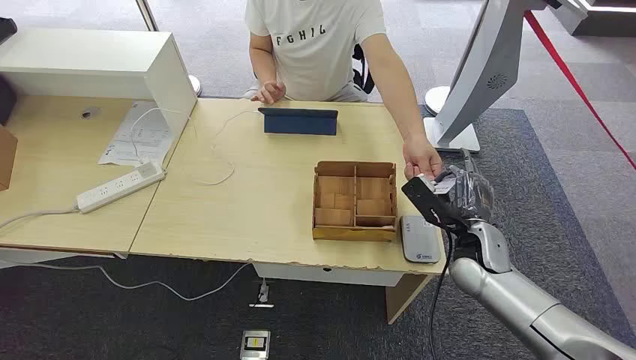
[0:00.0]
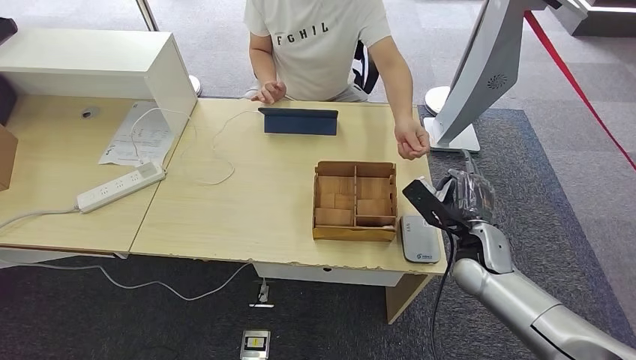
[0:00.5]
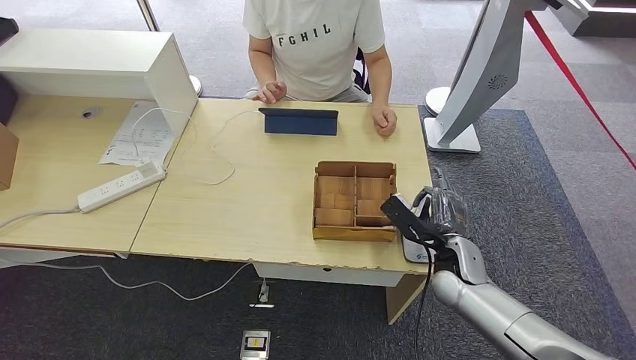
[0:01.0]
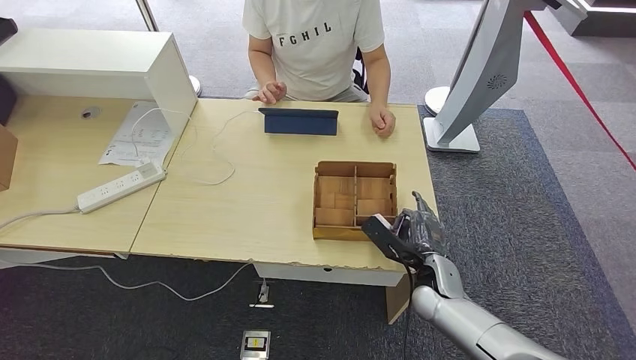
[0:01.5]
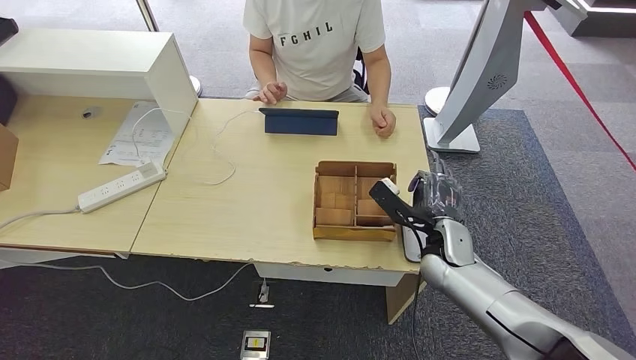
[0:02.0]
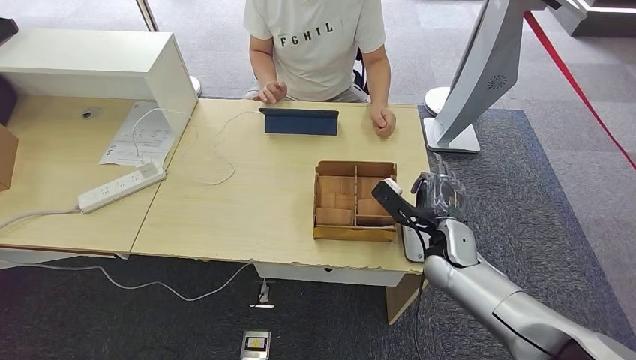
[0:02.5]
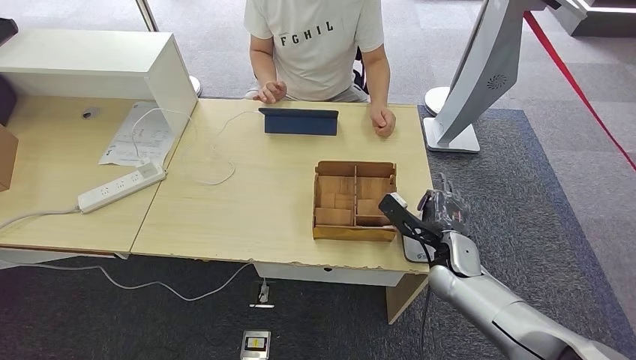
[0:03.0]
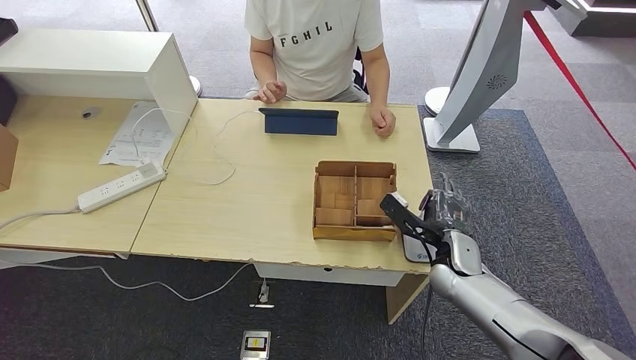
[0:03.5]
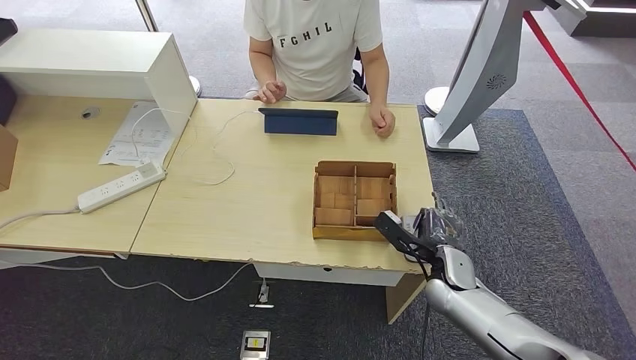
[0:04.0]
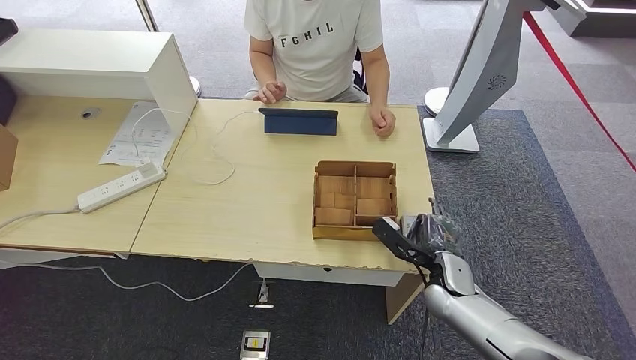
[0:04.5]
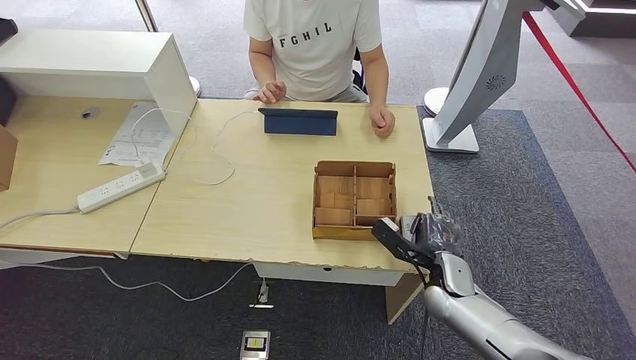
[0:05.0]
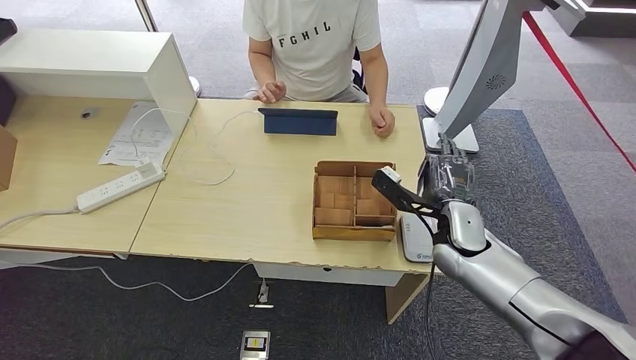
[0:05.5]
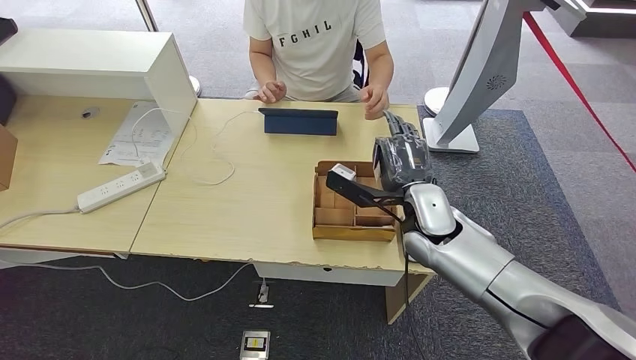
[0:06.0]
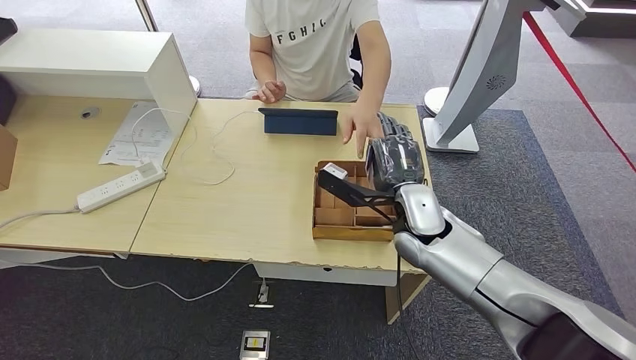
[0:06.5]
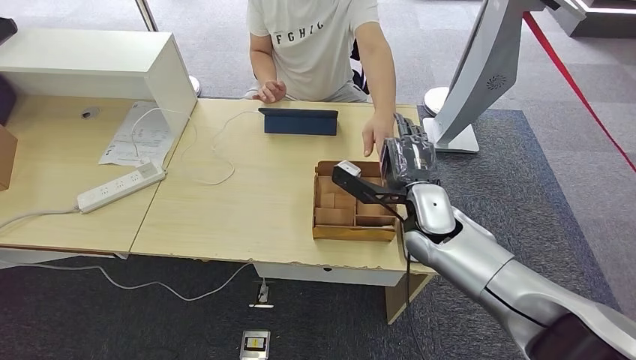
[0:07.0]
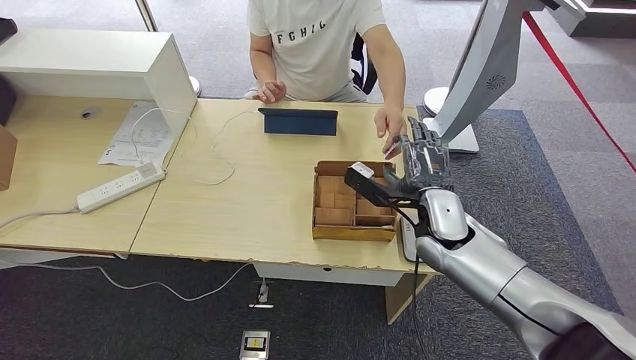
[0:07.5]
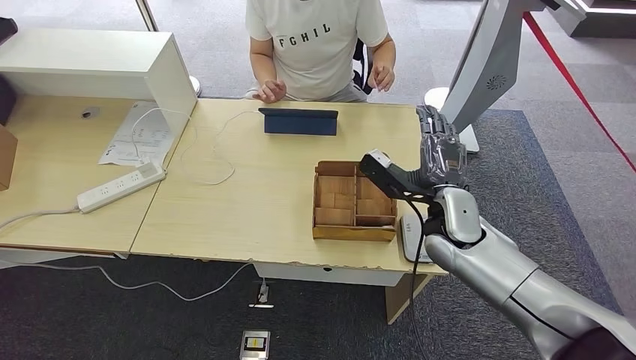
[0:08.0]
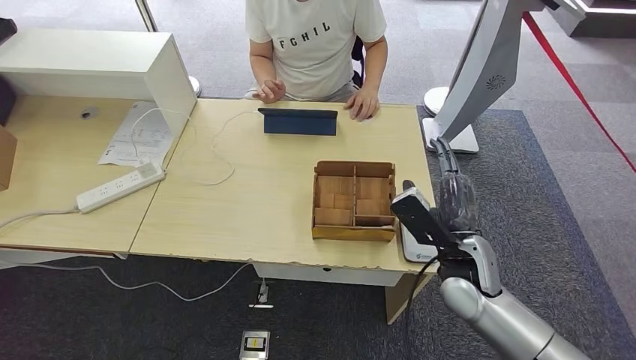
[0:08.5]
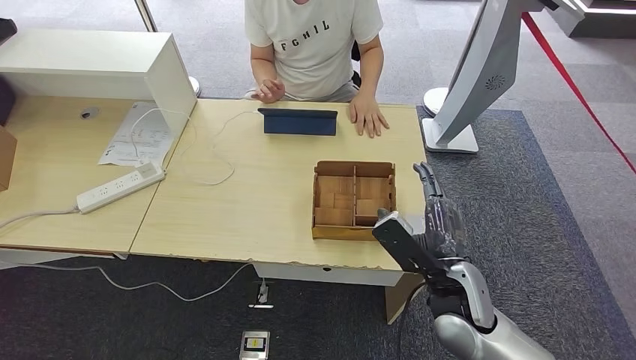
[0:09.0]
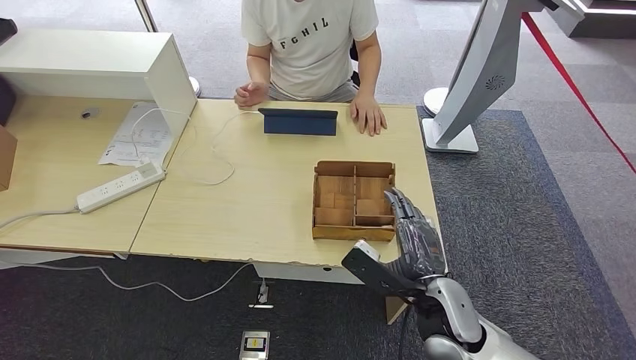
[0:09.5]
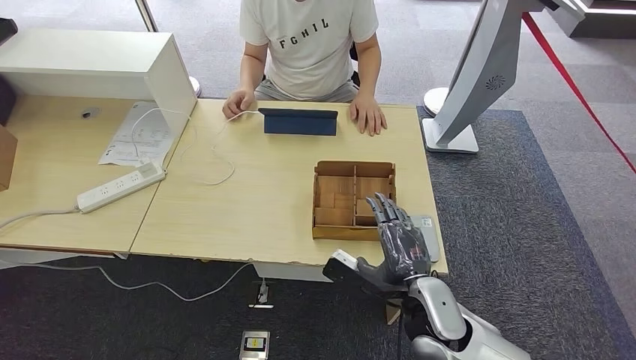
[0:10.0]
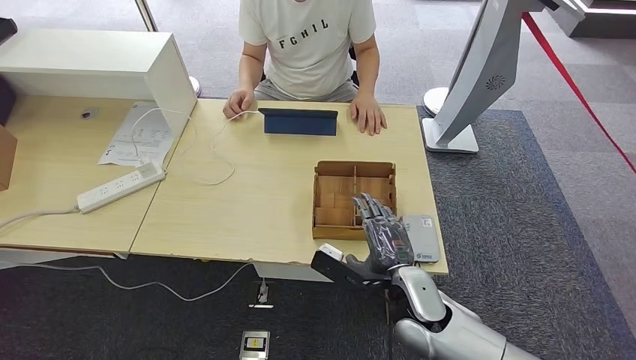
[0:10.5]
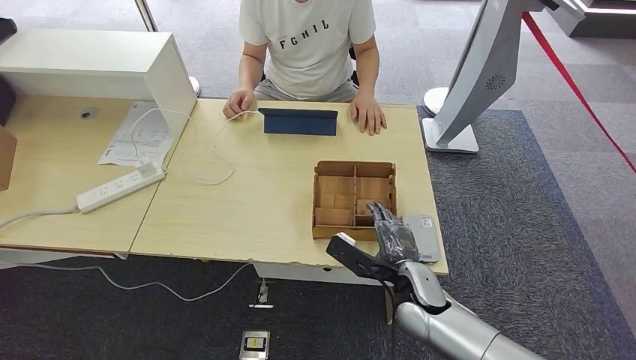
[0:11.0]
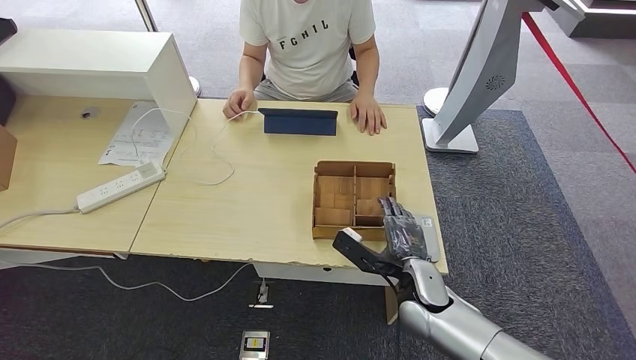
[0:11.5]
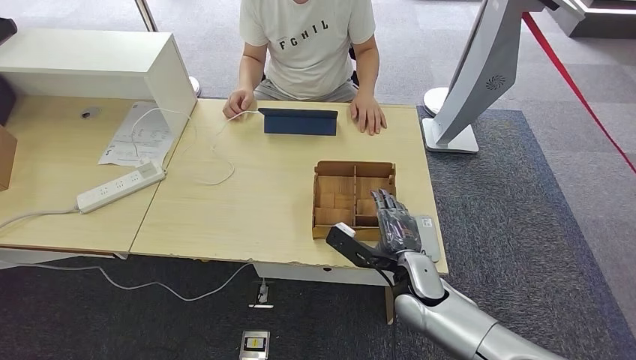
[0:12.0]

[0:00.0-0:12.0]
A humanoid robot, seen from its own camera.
Step, 0:00.0 to 0:01.0: Take the ID card from the person's hand.
Step, 0:01.5 to 0:05.5: Place the ID card on the card reader.
Step, 0:06.0 to 0:10.0: Hand the ID card to the person.
0:02.0 to 0:04.0: The right hand shifts by some 5 cm.
0:04.0 to 0:06.0: The right hand heads upward and to the left, covering roughly 15 cm.
0:06.0 to 0:08.0: The hands move only a little.
0:08.0 to 0:10.0: The right hand goes approximately 15 cm backward and downward.
0:10.0 to 0:12.0: The right hand goes roughly 5 cm forward.

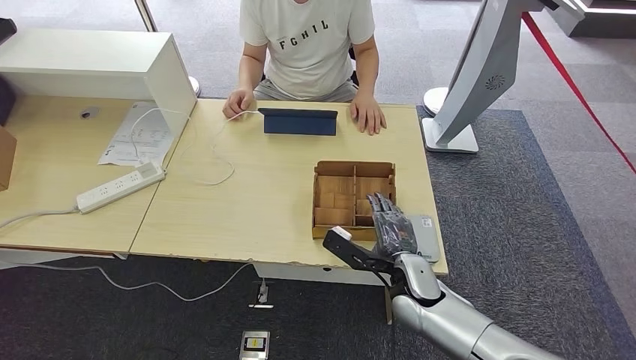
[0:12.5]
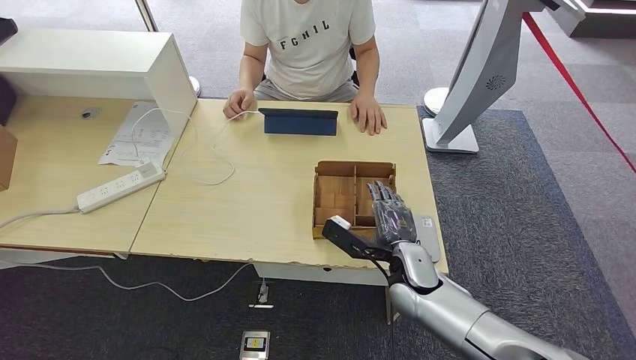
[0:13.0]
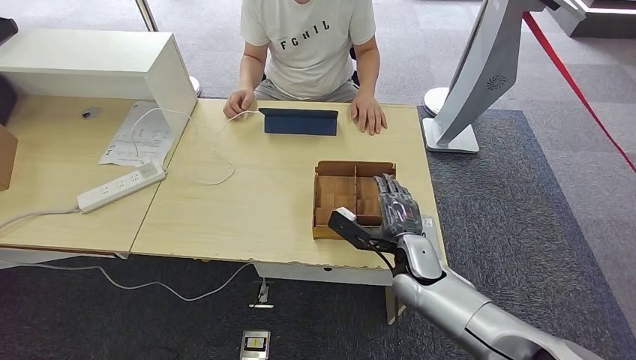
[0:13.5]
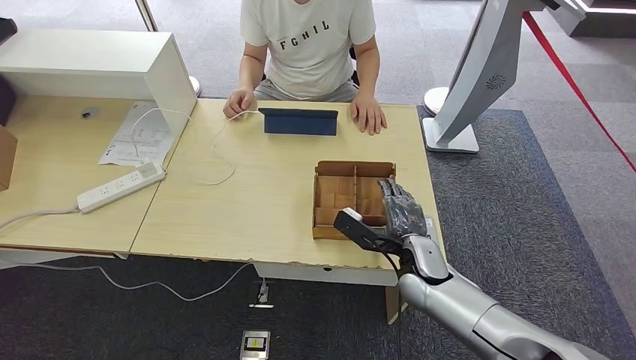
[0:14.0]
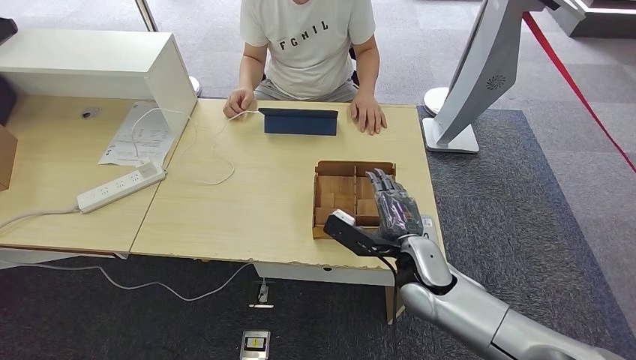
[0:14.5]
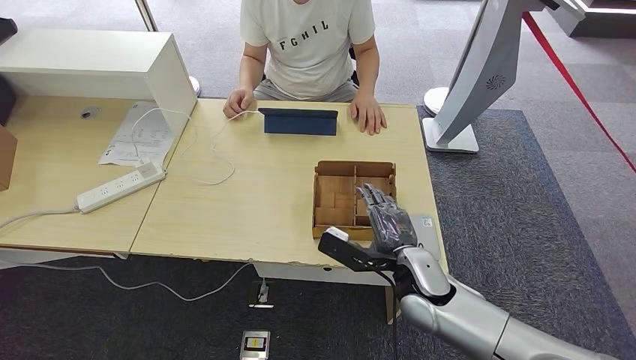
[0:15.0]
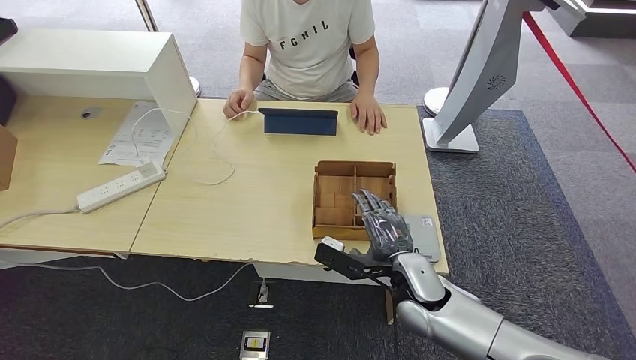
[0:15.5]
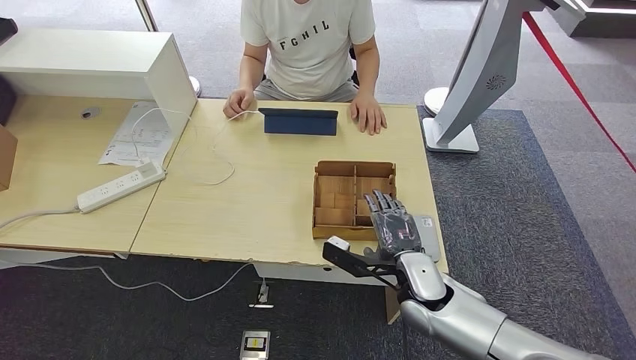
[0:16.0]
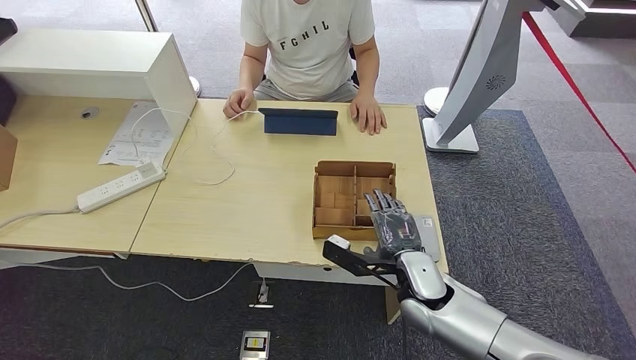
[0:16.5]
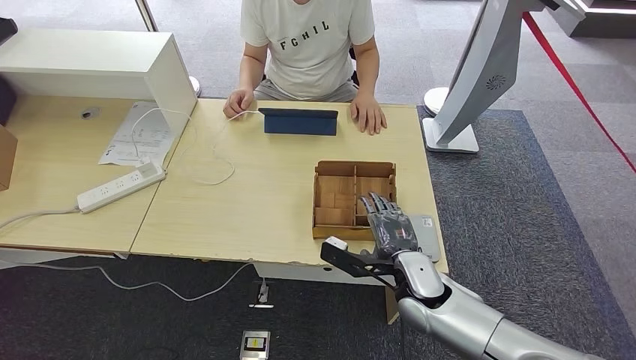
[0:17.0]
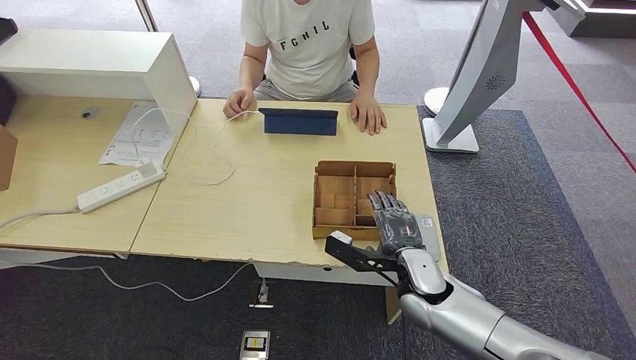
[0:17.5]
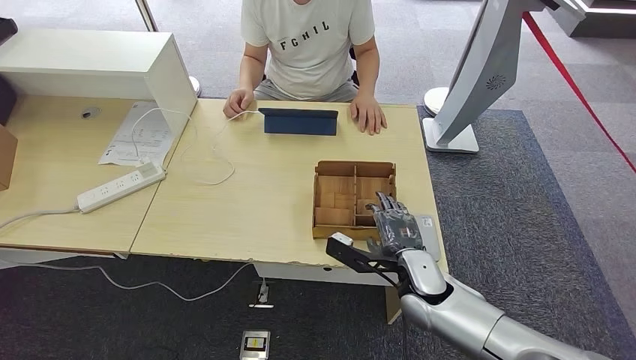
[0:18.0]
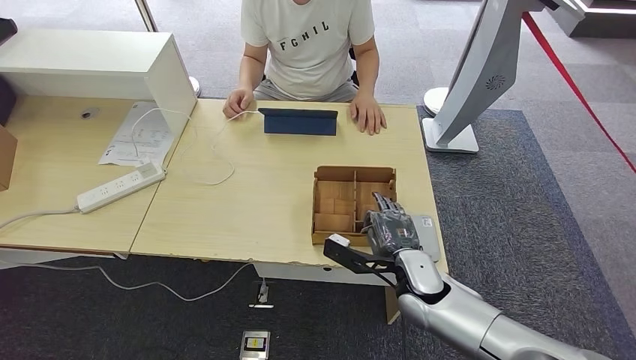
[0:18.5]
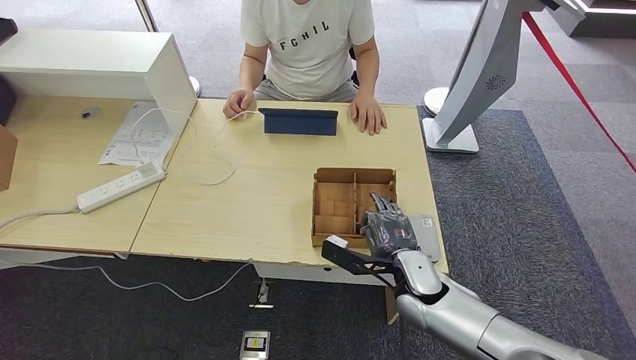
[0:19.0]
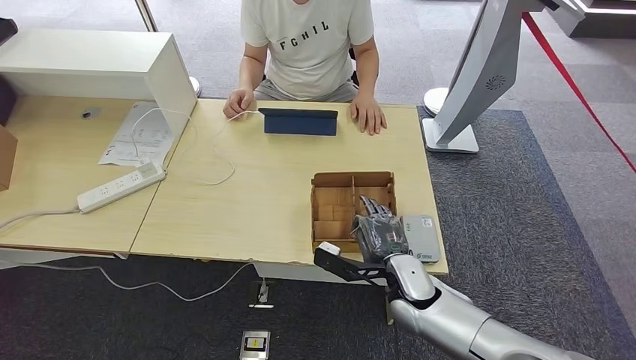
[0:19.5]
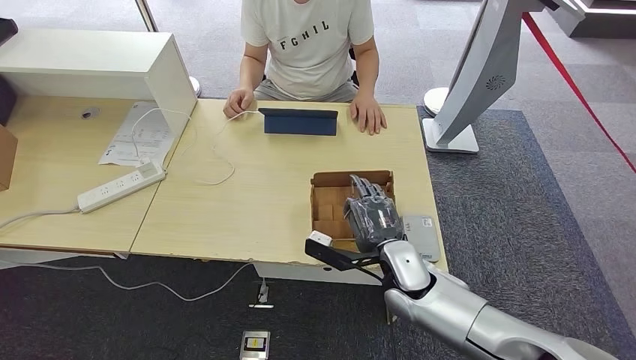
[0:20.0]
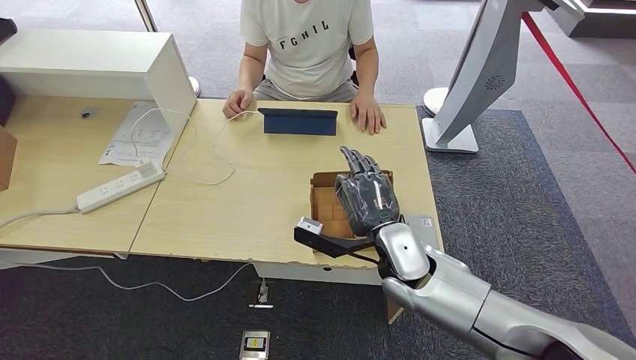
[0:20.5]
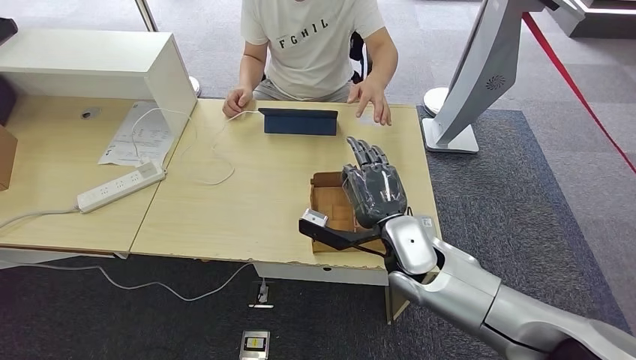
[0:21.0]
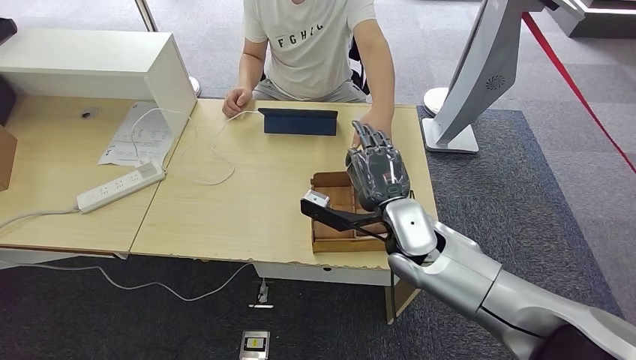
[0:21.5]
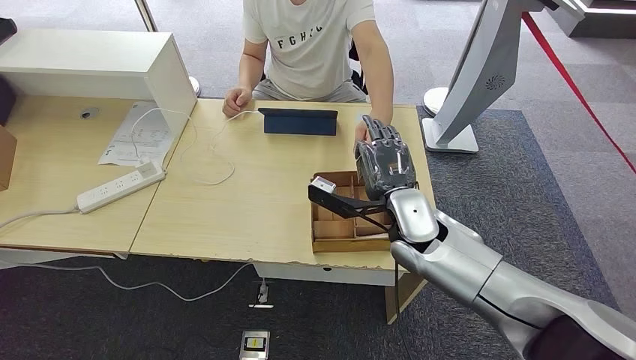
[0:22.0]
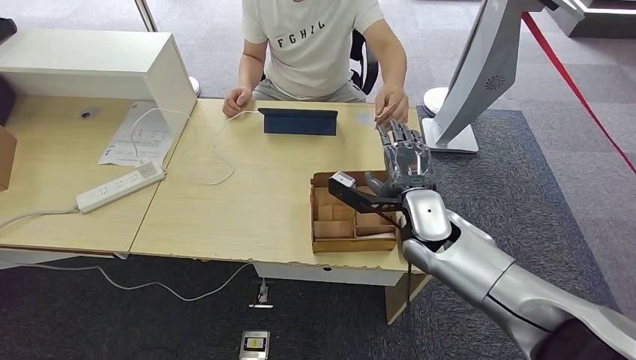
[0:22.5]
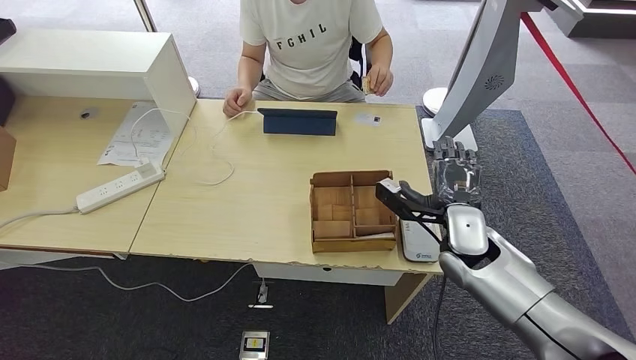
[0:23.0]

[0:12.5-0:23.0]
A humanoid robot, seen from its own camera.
Step, 0:12.5 to 0:22.0: Pick up the room key from the key card box.
0:12.5 to 0:16.5: There are only small adjustments of the hands.
0:16.5 to 0:19.0: Both hands stay put.
0:19.0 to 0:21.0: The right hand shifts approximately 10 cm upward.
0:21.0 to 0:23.0: The right hand is displaced to the right by some 10 cm.
